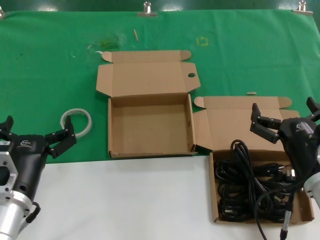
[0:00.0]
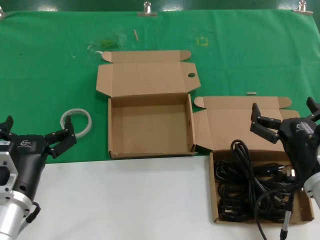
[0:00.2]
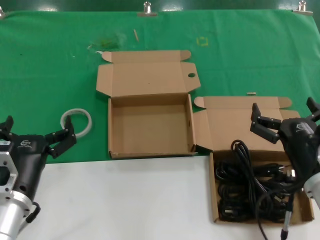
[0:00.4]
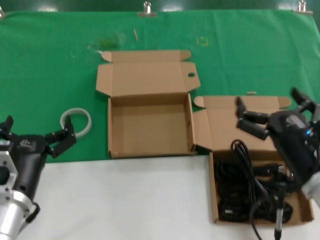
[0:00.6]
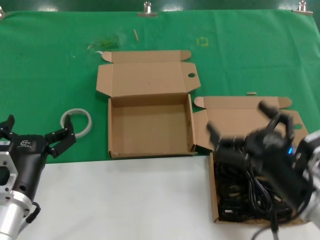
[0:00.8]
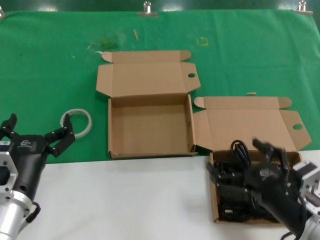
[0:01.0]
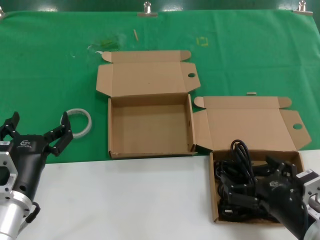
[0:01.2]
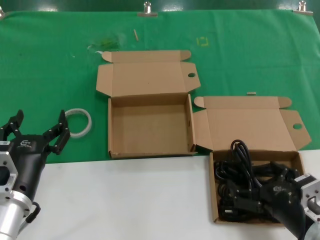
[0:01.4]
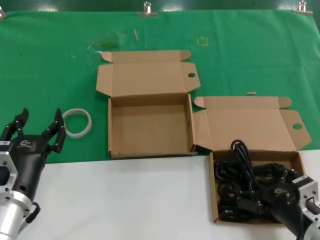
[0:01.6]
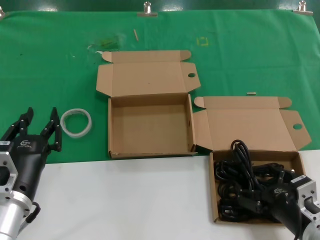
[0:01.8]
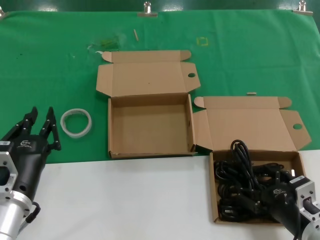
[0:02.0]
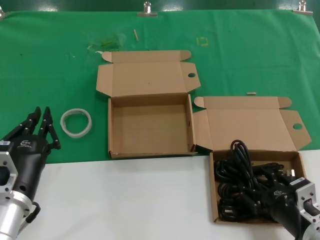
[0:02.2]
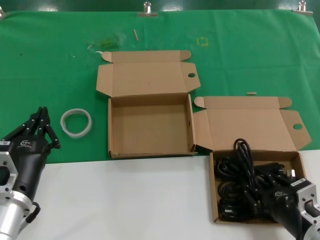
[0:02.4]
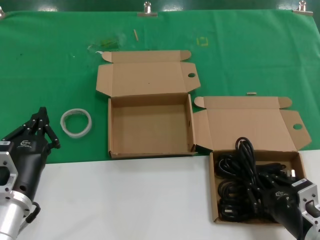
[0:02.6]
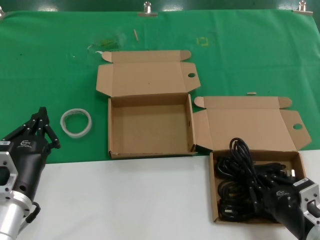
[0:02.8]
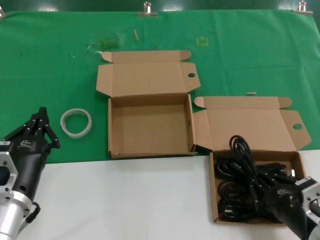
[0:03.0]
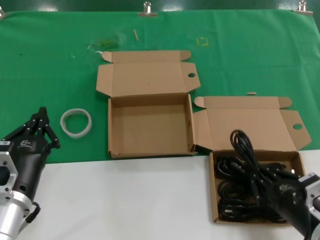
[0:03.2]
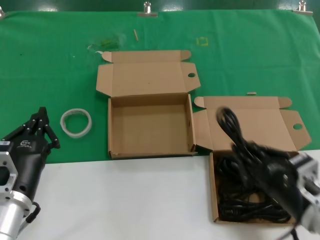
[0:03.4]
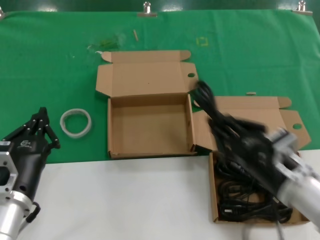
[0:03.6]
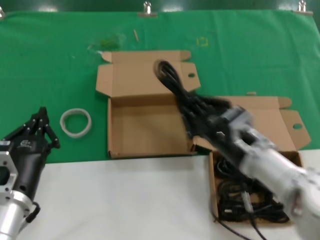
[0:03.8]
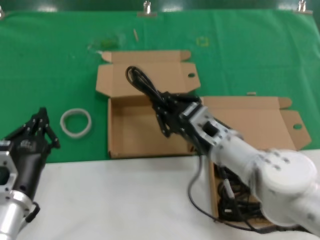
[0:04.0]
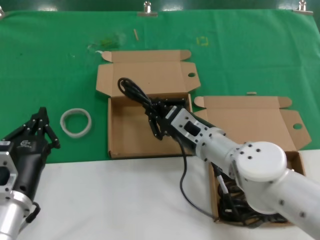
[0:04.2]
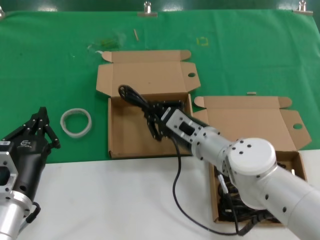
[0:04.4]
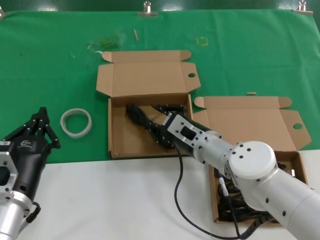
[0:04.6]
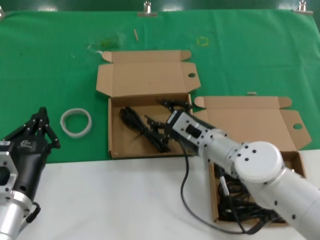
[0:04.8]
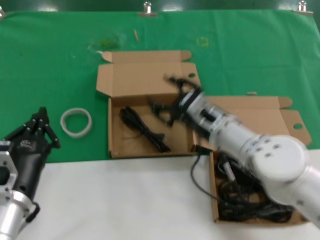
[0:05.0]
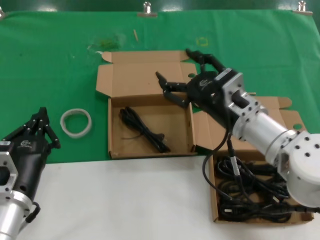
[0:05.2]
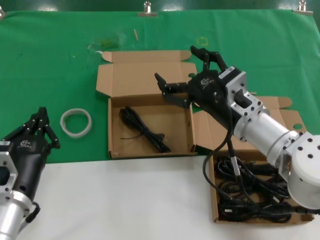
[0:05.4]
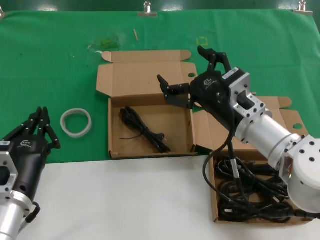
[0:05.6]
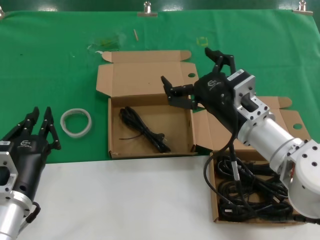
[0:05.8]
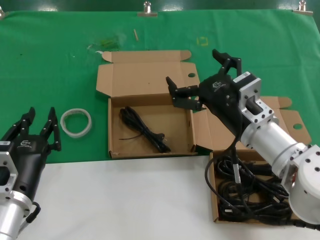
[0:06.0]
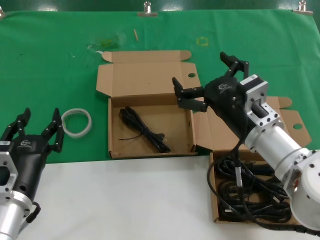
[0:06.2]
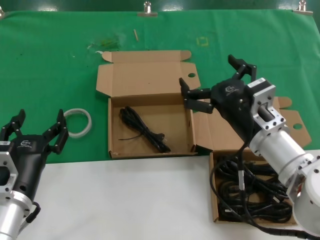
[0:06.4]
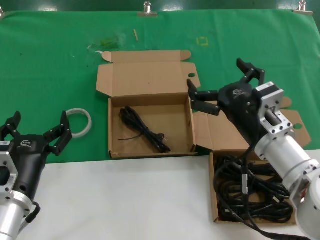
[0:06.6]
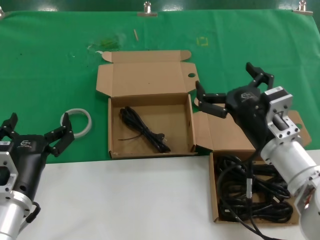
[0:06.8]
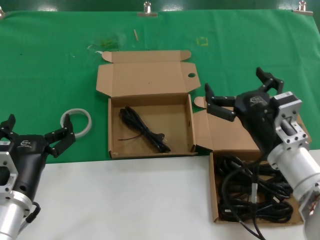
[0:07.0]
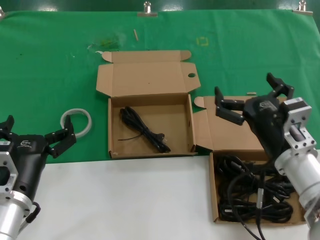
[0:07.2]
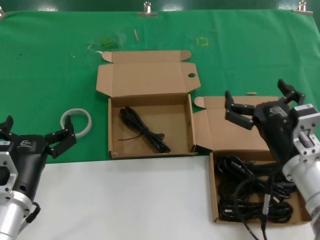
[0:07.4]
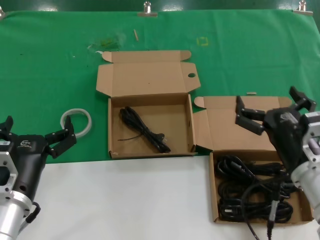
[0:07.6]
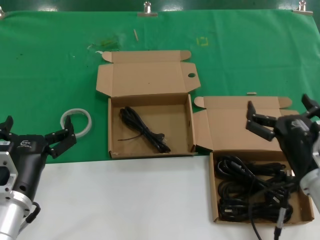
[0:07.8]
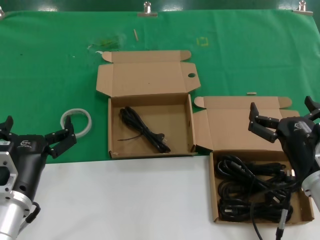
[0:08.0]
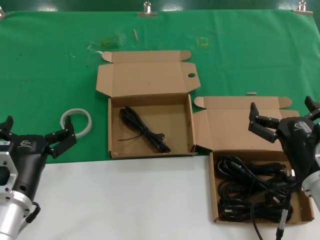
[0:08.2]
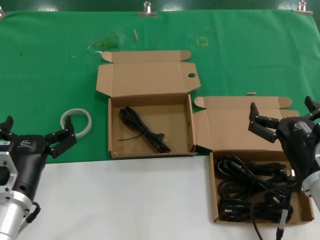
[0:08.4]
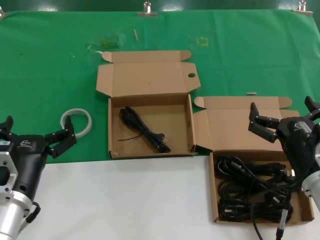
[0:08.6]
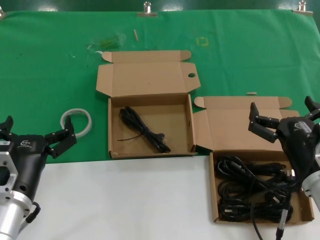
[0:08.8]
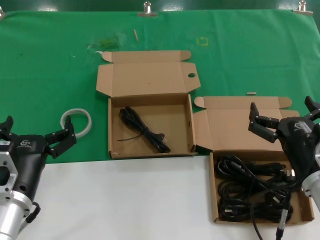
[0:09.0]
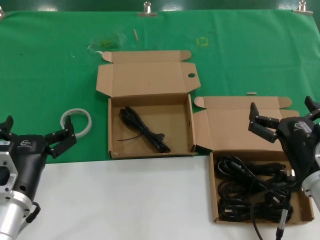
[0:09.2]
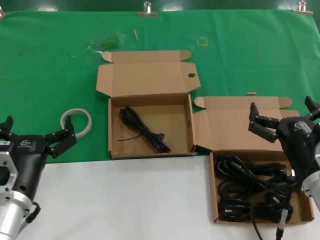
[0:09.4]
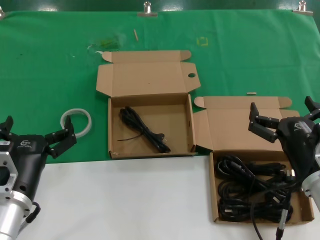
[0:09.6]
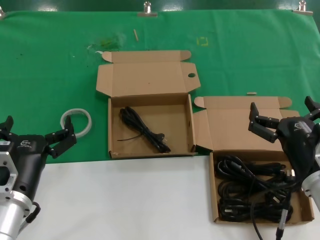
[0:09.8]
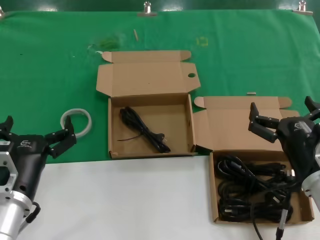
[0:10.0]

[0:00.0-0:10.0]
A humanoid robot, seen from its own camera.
Task of the whole recording: Pick up the power cord from the box containing it and place it in another box.
Step, 0:00.0 to 0:03.2: Grasp the data cable.
Step, 0:03.4 to 0:04.8: Place the data cable in the another box.
0:00.0 to 0:01.4: The right hand goes about 5 cm backward.
0:01.4 to 0:02.8: There are only small adjustments of the hands.
0:02.8 to 0:04.2: The right hand heads forward, to the left and upward, covering some 25 cm.
0:04.2 to 0:05.8: The right hand shifts roughly 10 cm upward and to the right.
0:05.8 to 0:07.2: The right hand ends up about 10 cm from where it was.
0:07.2 to 0:08.6: The right hand shifts by about 5 cm.
0:08.6 to 0:10.0: Neither hand changes place.
